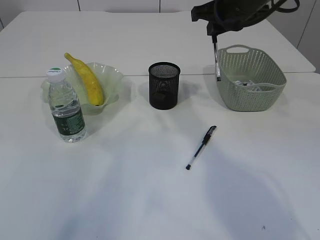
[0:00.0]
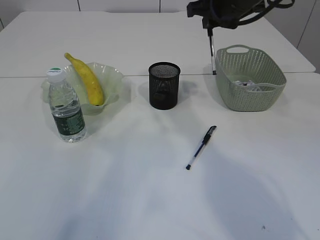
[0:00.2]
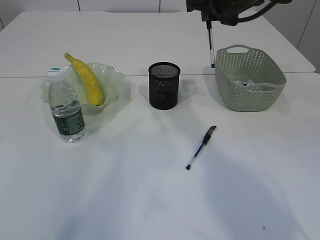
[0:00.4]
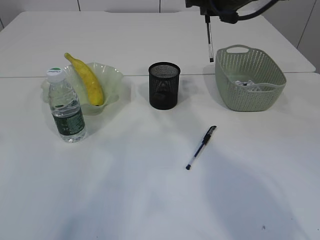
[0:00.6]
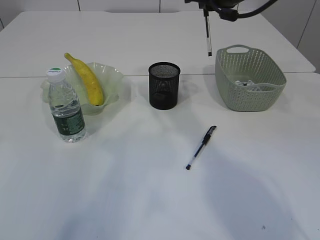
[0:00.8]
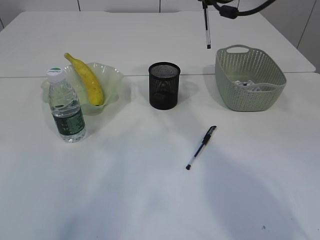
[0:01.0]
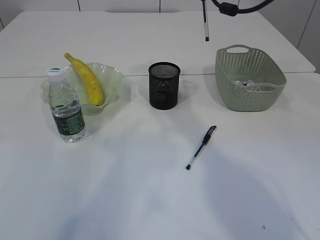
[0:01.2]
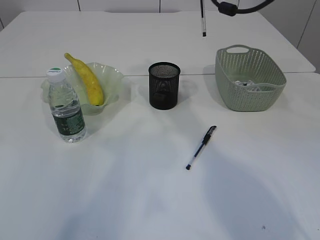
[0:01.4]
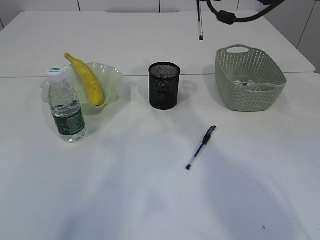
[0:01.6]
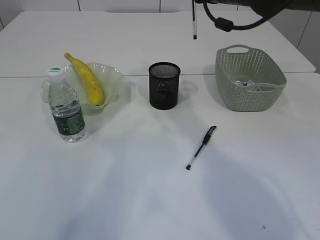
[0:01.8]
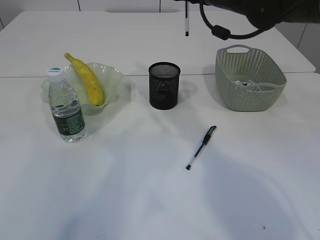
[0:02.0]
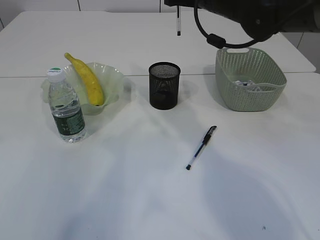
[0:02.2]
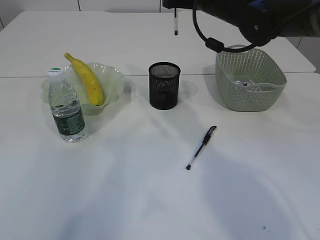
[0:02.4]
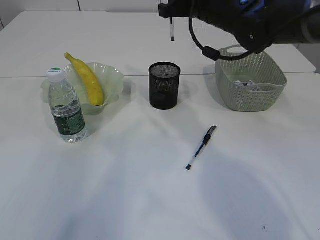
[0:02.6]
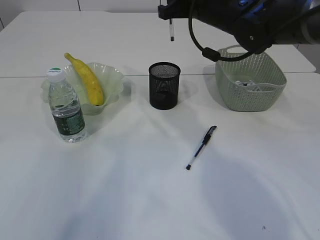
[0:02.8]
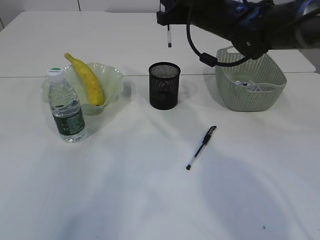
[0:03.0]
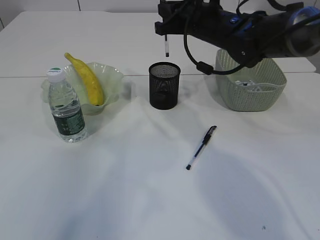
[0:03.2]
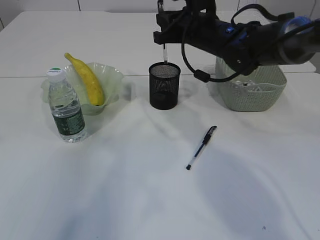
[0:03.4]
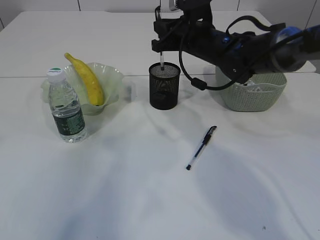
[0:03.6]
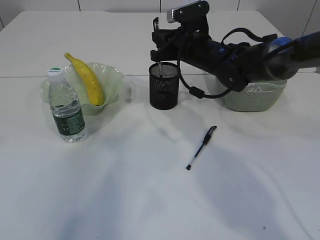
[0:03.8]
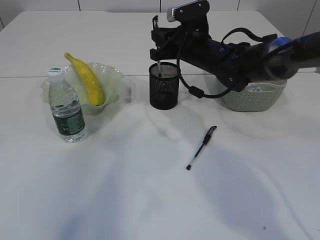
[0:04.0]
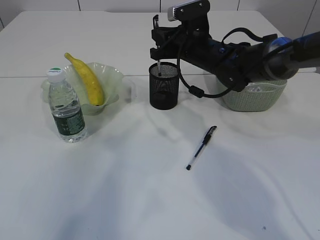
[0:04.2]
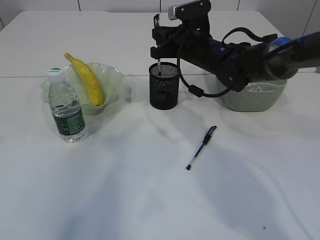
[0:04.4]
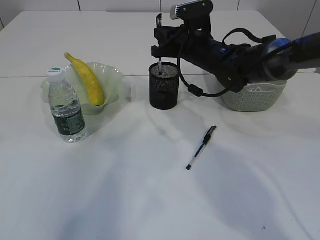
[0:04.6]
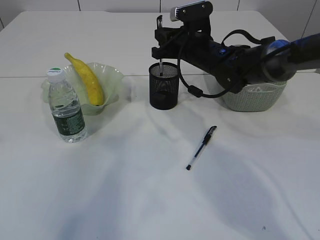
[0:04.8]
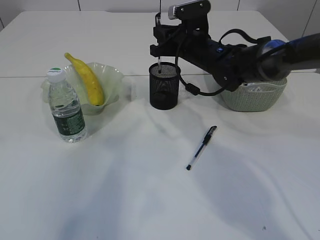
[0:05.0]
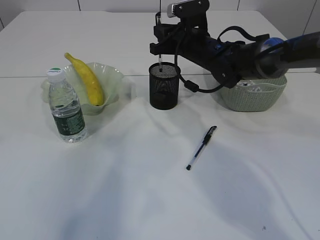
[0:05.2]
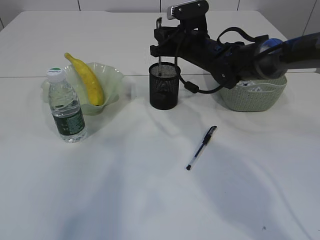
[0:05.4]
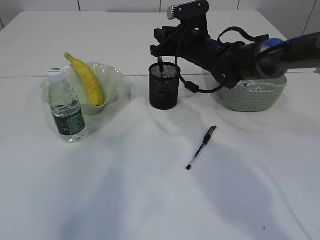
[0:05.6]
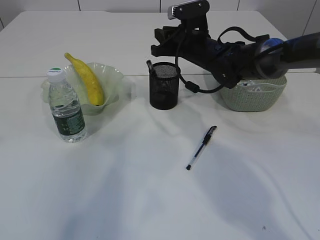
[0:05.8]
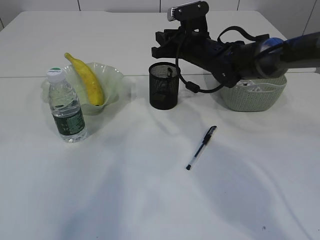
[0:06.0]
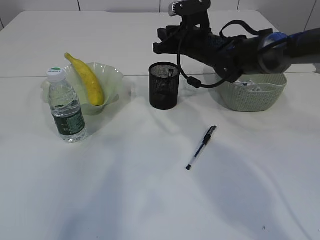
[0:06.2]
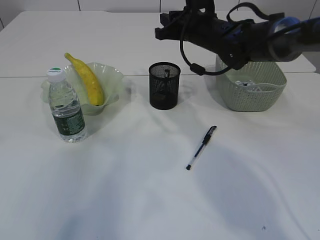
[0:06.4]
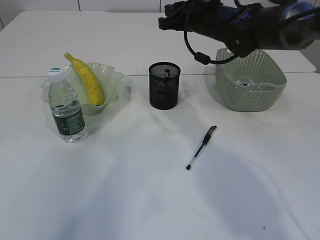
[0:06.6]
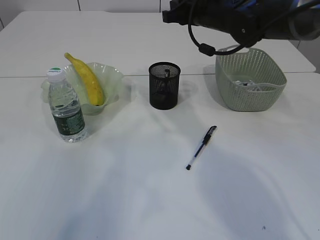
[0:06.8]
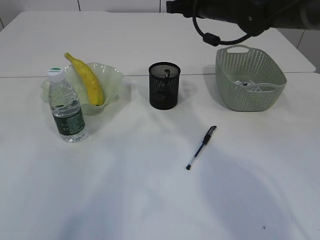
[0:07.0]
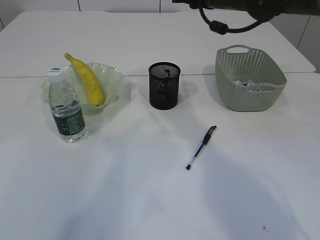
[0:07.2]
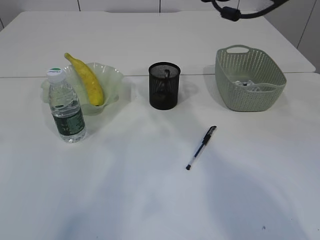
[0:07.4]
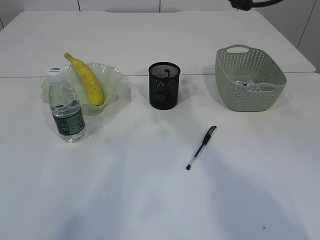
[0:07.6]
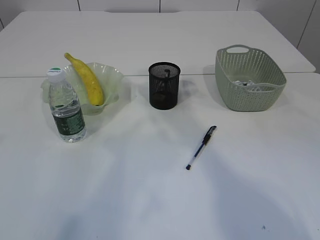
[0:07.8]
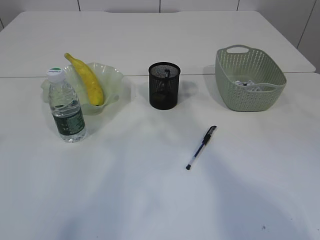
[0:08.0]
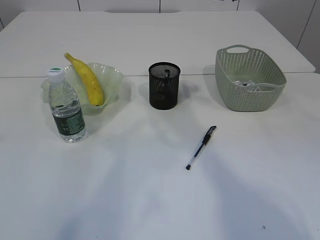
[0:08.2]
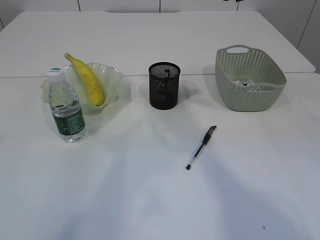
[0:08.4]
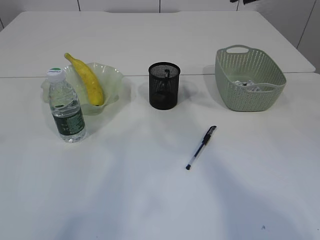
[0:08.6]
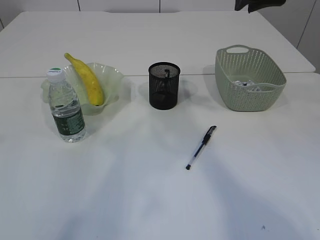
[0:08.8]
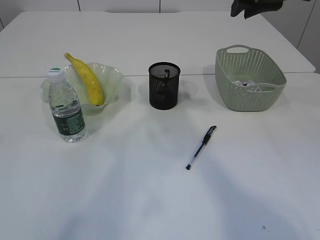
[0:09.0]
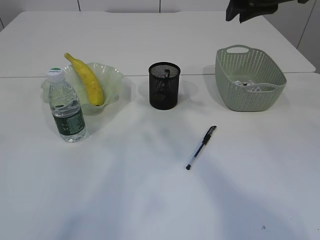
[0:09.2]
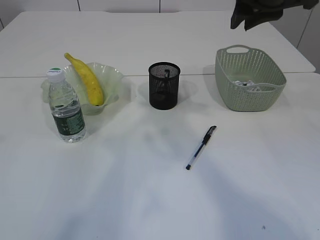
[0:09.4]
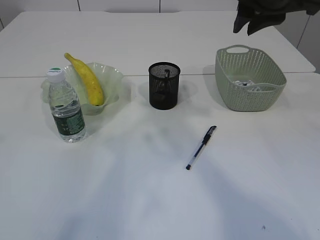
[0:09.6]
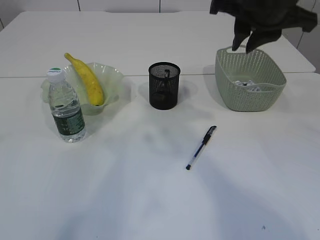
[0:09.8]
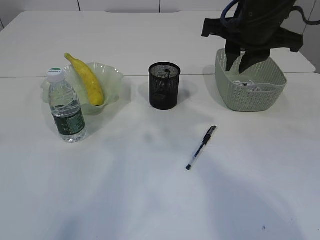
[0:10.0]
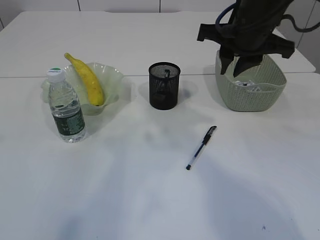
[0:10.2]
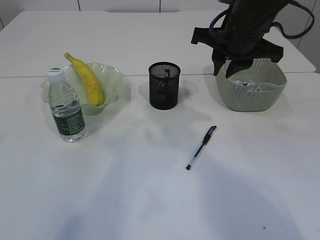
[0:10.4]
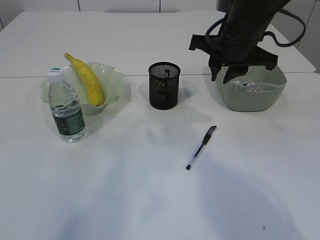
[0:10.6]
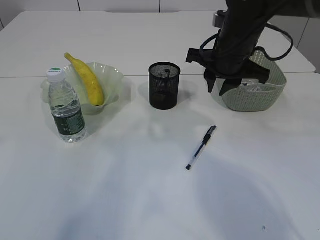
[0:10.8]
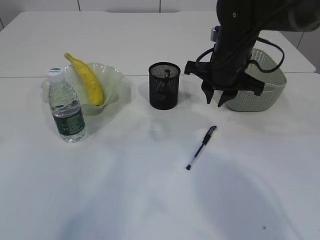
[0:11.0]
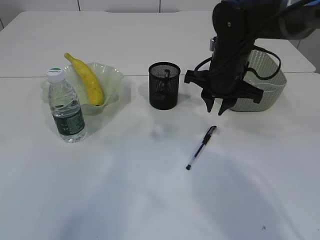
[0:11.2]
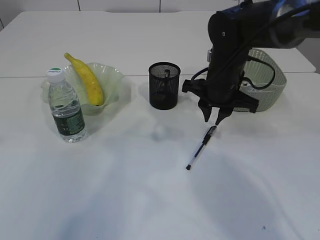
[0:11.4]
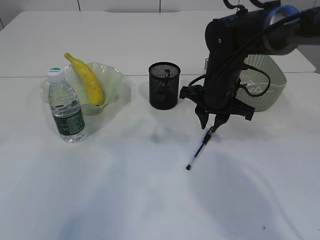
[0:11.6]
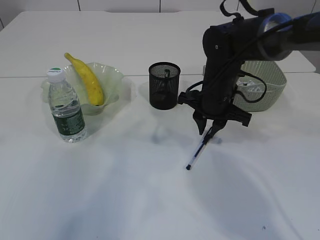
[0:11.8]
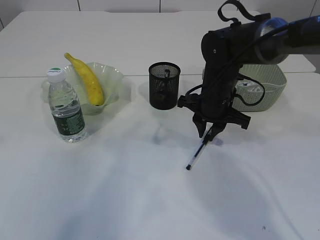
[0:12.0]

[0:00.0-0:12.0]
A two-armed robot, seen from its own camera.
Step, 0:00.0 to 0:06.2: Place the pen into the pen holder.
0:01.6 to 0:03.0: The right gripper ends up approximately 5 cm from where it was.
0:03.0 to 0:04.4: The right gripper is displaced downward by approximately 10 cm.
0:04.4 to 0:06.0: The grippers make only small movements.
0:06.0 to 0:07.6: The right gripper shifts roughly 15 cm upward and backward.
0:07.6 to 0:09.0: The right gripper moves backward, some 5 cm.
0:09.0 to 0:10.4: The right gripper is displaced downward by approximately 10 cm.
0:10.4 to 0:12.0: The right gripper travels downward by approximately 15 cm.

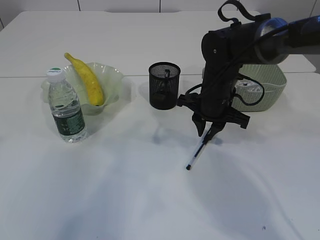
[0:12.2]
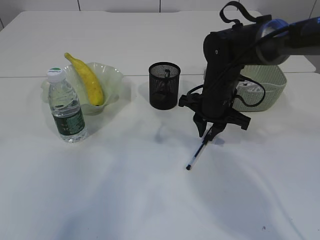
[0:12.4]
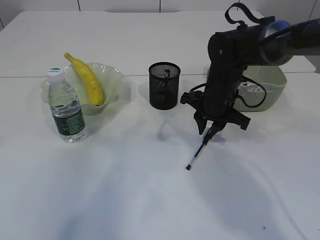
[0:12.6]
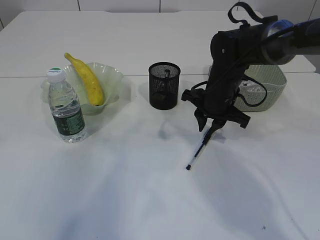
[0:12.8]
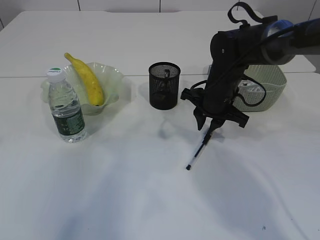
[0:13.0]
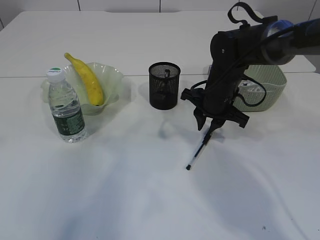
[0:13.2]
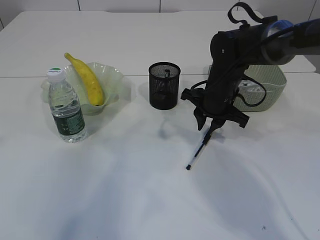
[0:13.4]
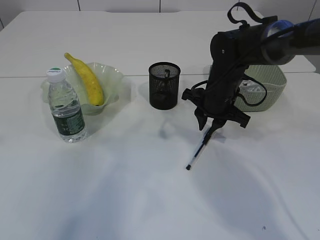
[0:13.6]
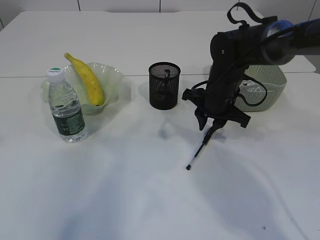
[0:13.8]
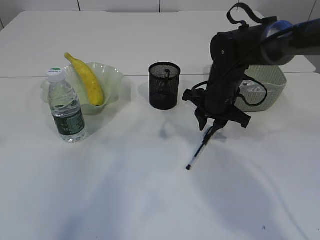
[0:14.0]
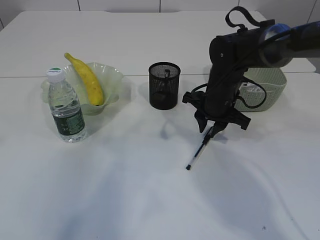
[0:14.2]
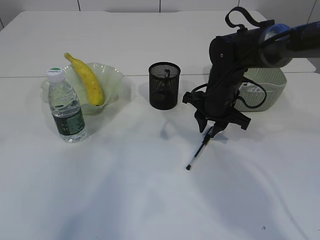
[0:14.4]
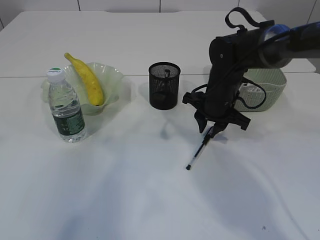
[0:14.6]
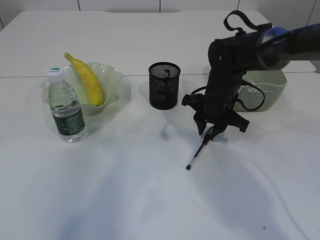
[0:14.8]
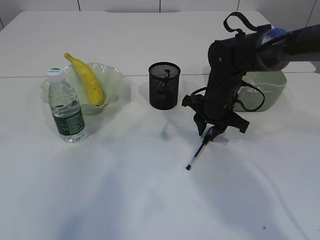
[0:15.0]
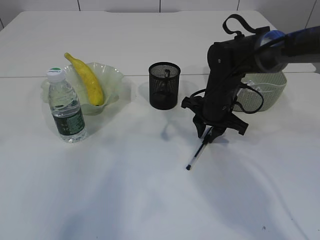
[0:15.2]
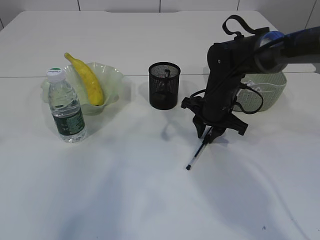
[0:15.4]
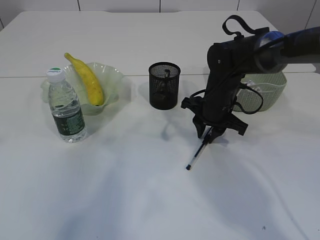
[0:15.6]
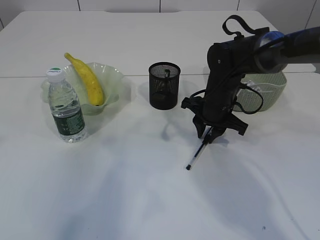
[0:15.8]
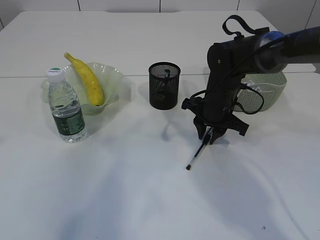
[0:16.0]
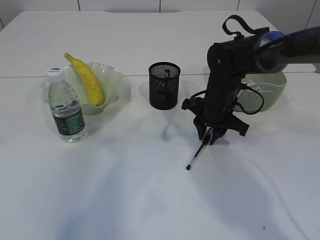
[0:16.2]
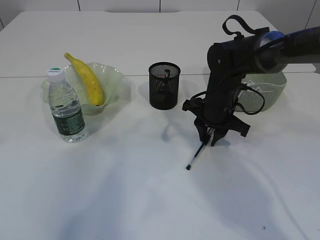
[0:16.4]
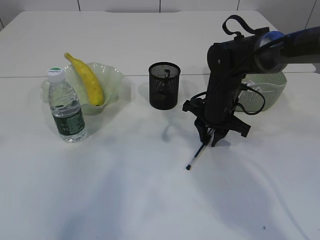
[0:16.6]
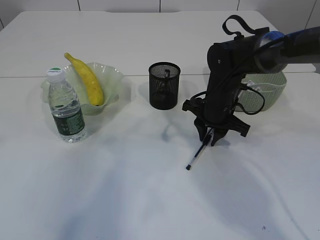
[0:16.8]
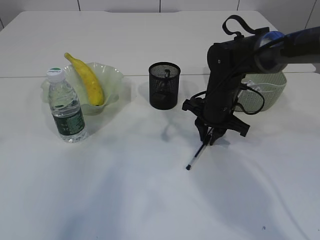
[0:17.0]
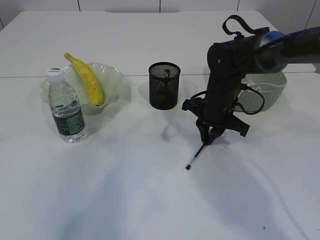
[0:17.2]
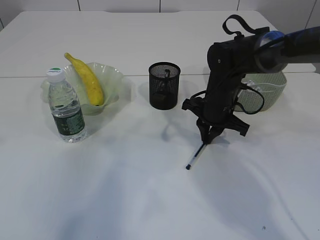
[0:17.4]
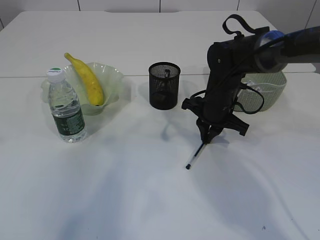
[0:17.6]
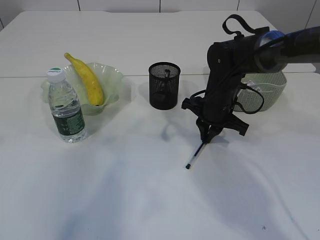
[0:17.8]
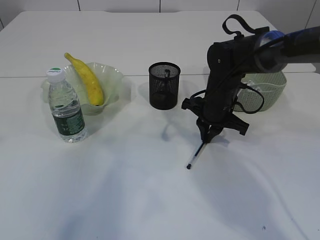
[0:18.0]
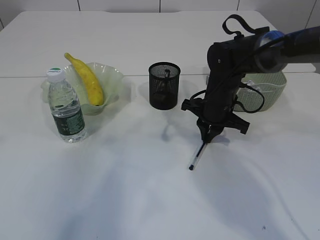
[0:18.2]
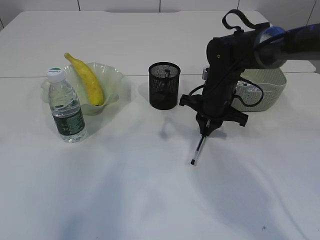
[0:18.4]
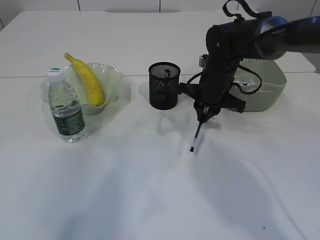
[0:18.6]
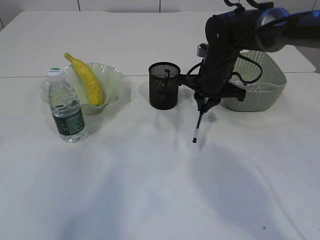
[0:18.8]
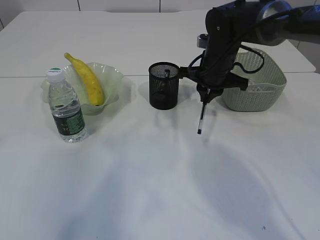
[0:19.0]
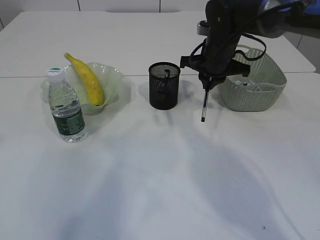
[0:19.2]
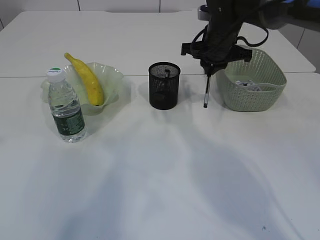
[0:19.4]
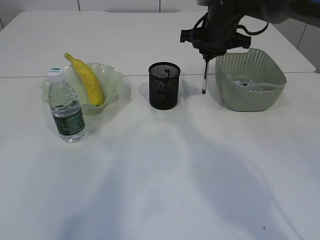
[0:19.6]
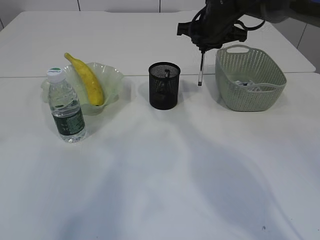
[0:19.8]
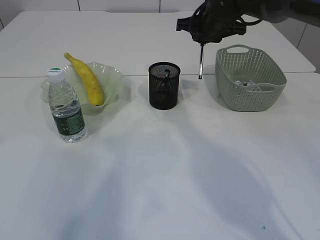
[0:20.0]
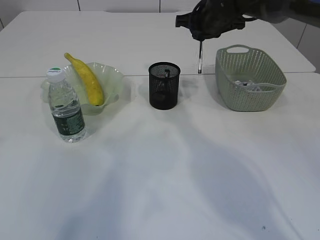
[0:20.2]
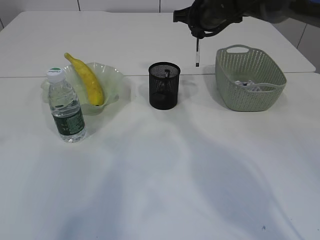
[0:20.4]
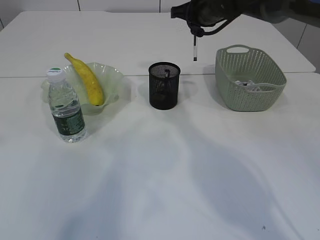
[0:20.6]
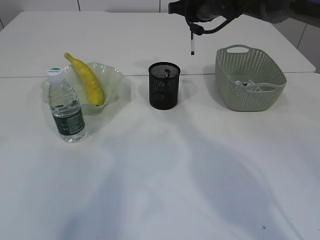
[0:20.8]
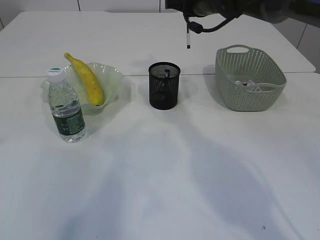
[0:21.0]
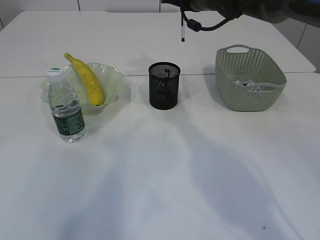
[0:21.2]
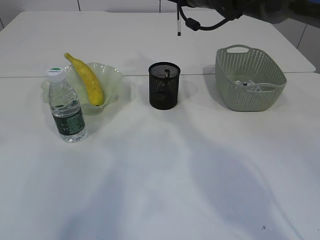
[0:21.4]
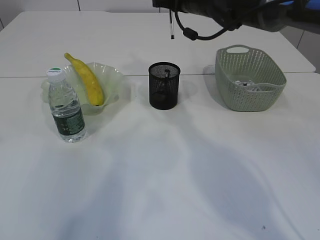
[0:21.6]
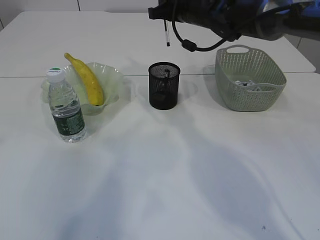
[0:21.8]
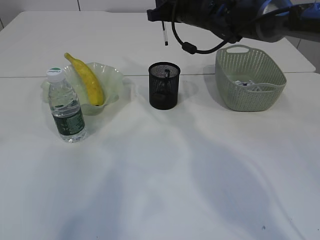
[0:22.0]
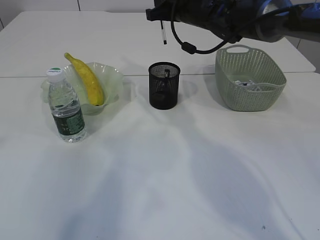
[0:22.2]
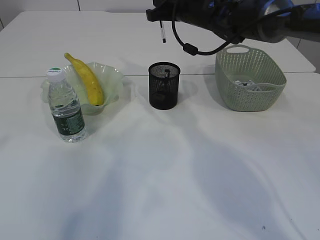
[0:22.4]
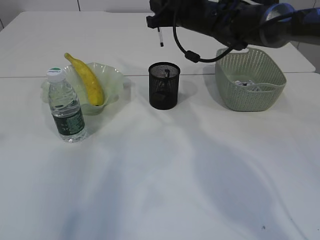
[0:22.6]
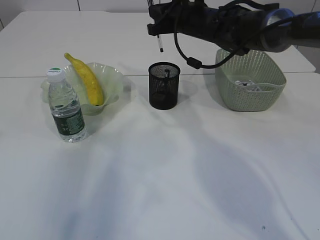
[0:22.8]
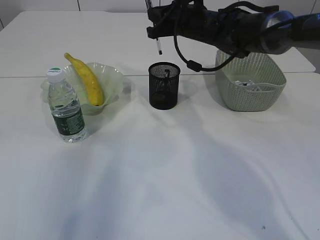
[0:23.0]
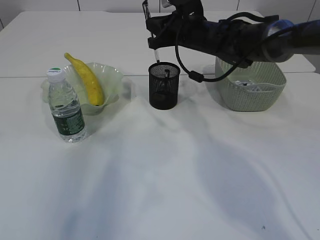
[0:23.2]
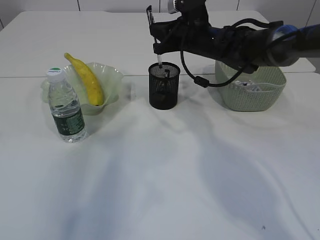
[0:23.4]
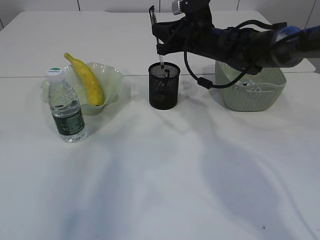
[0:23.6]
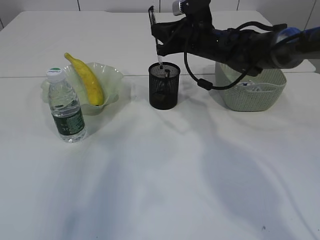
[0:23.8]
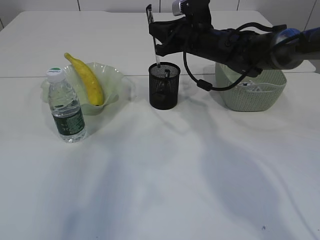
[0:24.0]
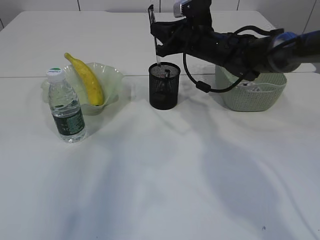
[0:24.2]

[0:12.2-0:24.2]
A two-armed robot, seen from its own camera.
Step, 0:12.2 to 0:19.0: Pick up the pen with right arm.
0:12.2 to 0:15.2: The grippers stay close to where they were, moving slightly.
0:15.2 to 0:16.6: The two grippers keep their place.
0:16.6 to 0:18.2: The right gripper closes its fingers.
0:18.2 to 0:19.8: The right gripper heads upward and forward, covering approximately 15 cm.
0:22.6 to 0:24.2: The right gripper travels downward by roughly 5 cm.
